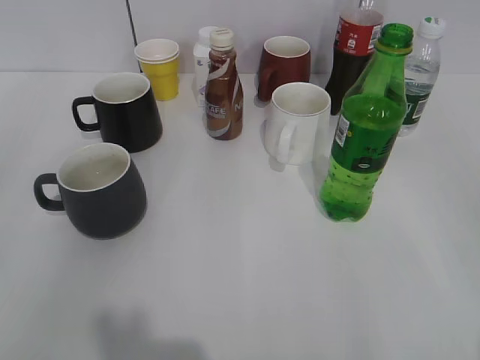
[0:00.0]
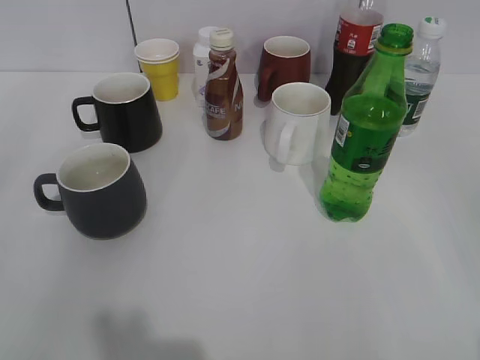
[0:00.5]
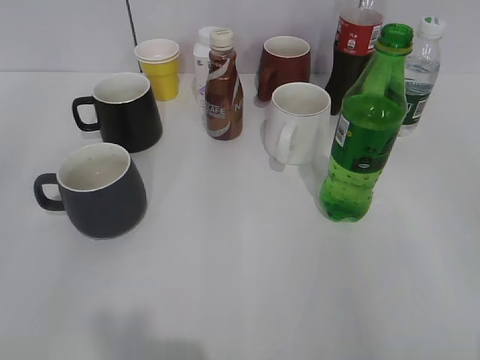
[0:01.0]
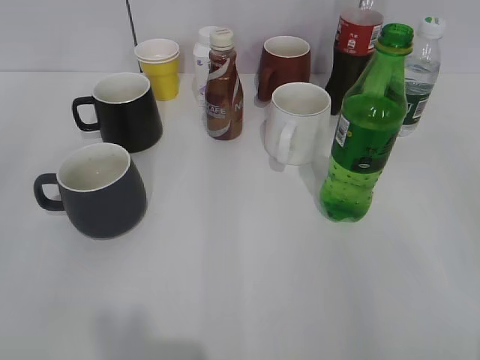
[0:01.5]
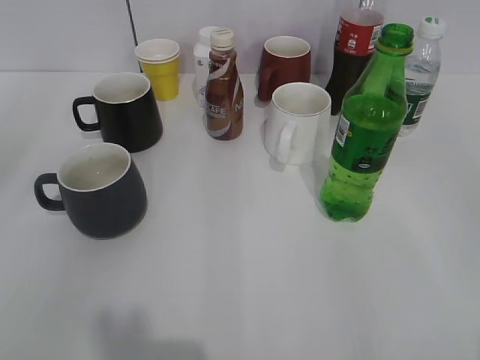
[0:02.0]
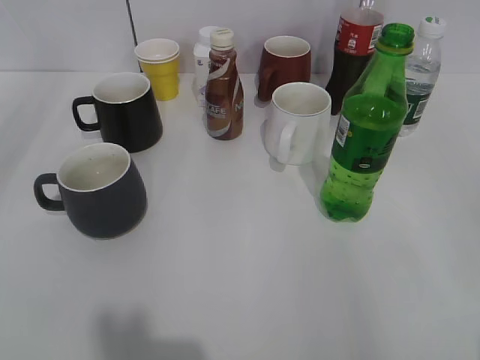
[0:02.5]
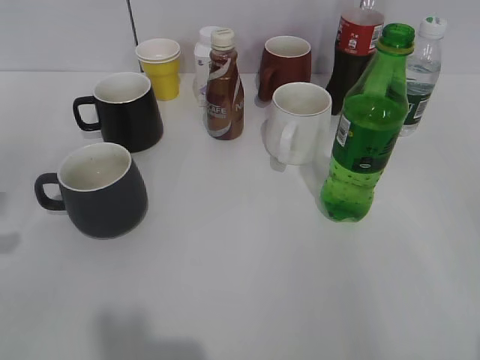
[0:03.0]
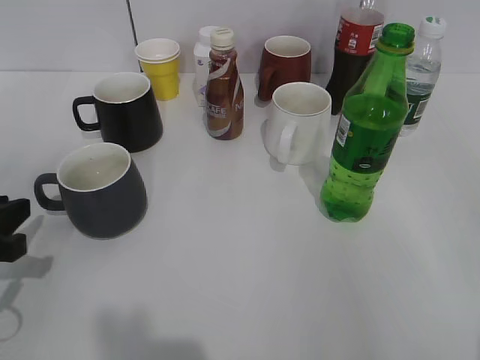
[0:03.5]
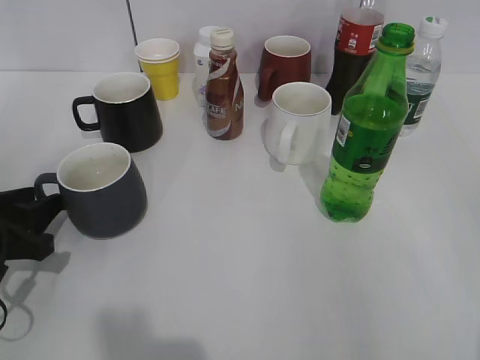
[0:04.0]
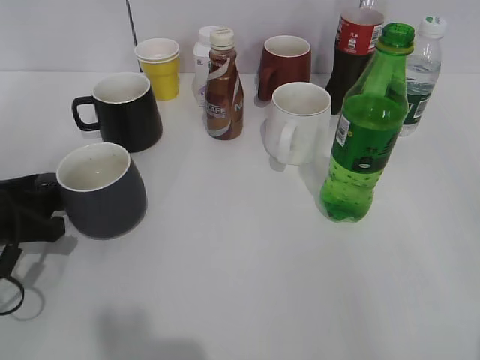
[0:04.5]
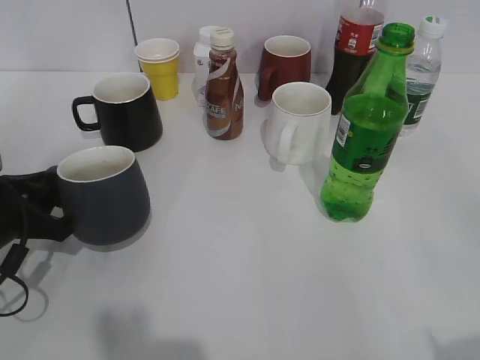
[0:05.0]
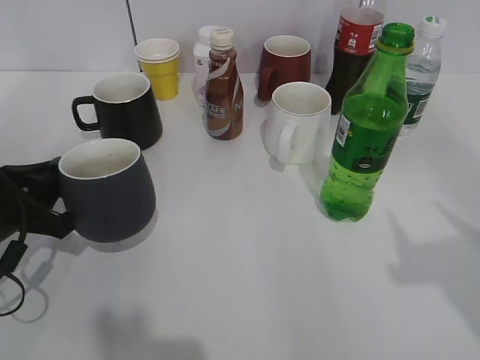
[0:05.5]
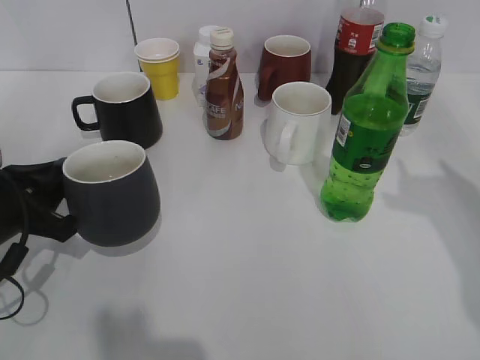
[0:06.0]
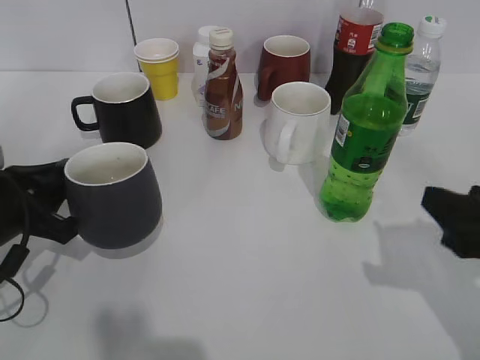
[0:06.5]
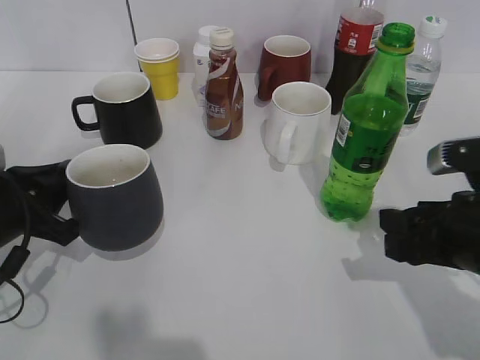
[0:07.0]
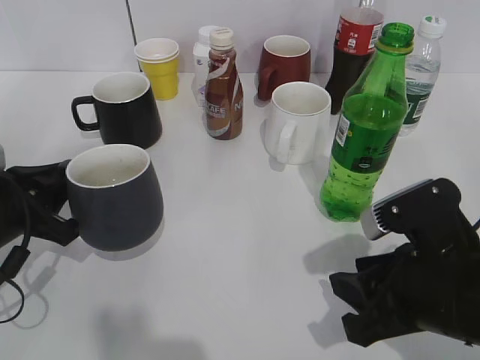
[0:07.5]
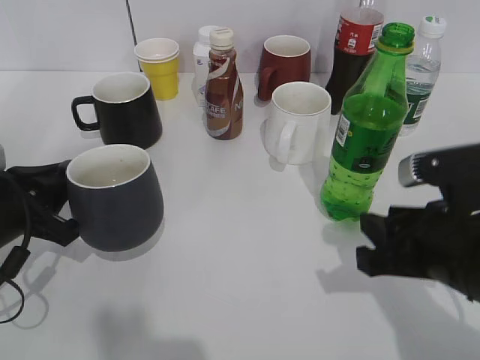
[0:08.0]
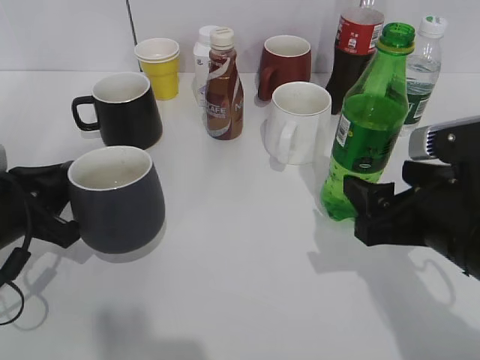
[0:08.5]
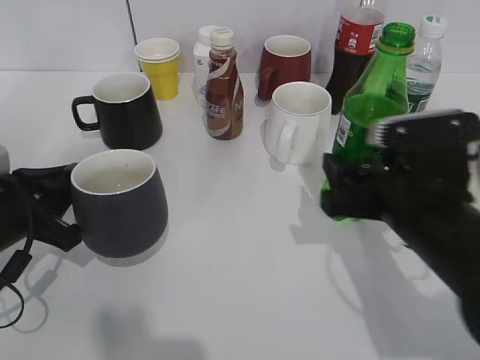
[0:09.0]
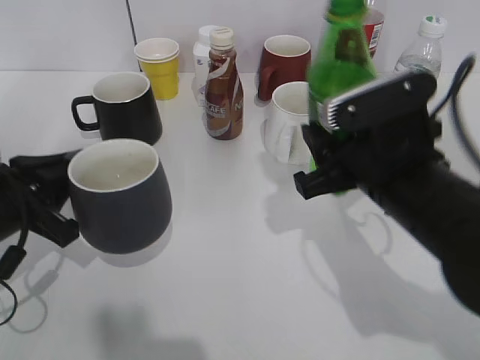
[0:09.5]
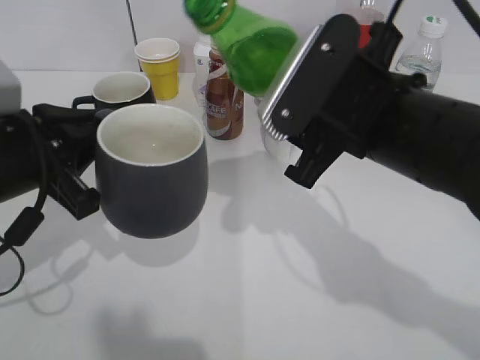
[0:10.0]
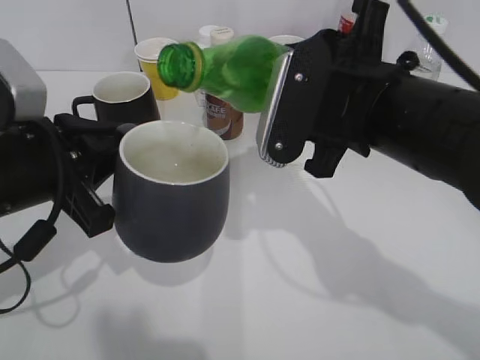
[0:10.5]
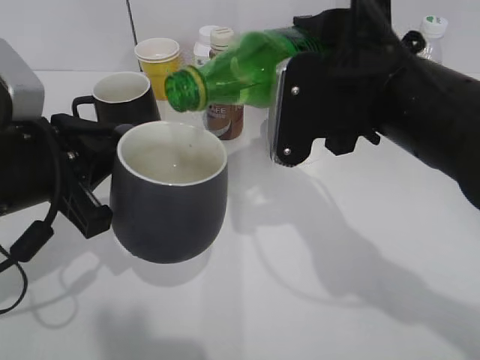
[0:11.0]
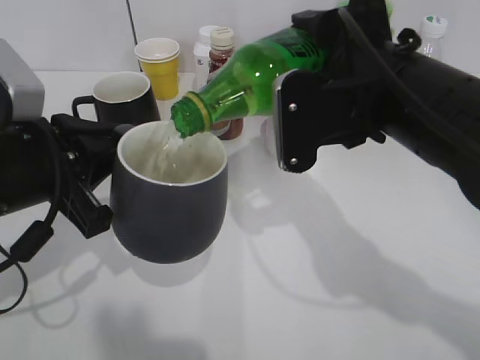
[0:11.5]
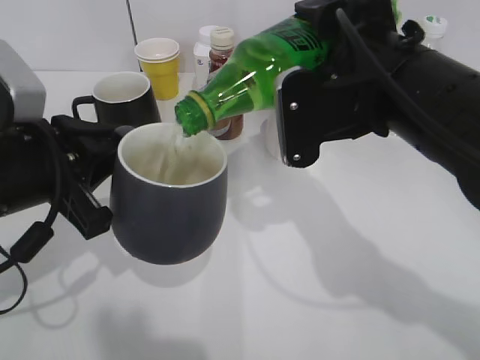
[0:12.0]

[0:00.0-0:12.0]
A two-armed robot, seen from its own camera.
Step, 0:02.0 to 0:04.5: Grasp the grey cup with left gripper.
Step, 0:06.5 to 0:09.0: Grasp the bottle with sprite with right gripper.
0:02.0 to 0:04.0: The left gripper shifts approximately 25 cm downward and forward, and opens its fingers.
0:04.0 to 0:06.0: The left gripper closes. The right gripper heads forward, covering approximately 20 cm.
0:06.0 to 0:08.0: The right gripper goes about 15 cm downward and to the left, and closes.
0:08.0 to 0:10.0: The right gripper shifts roughly 15 cm to the left, upward and forward, and opens and closes again, while the left gripper moves upward, approximately 10 cm.

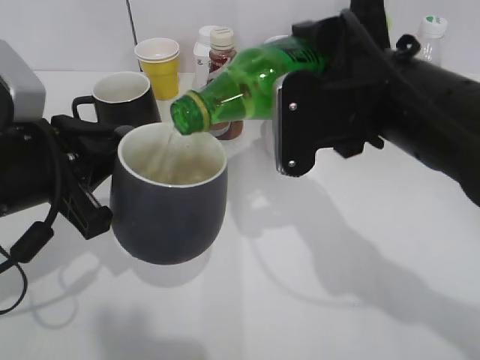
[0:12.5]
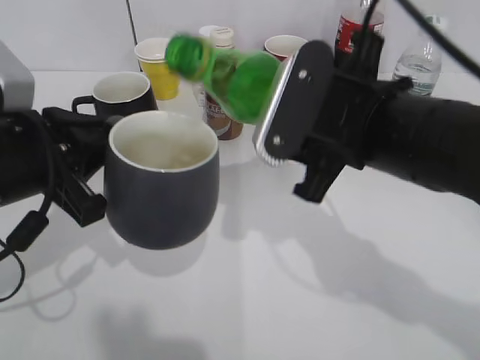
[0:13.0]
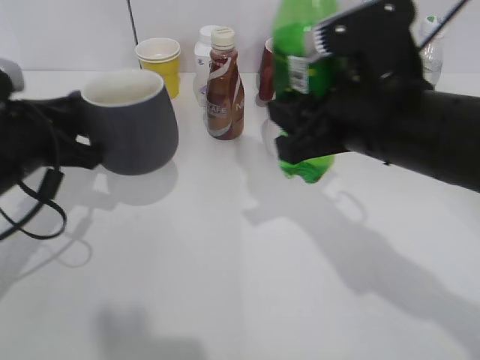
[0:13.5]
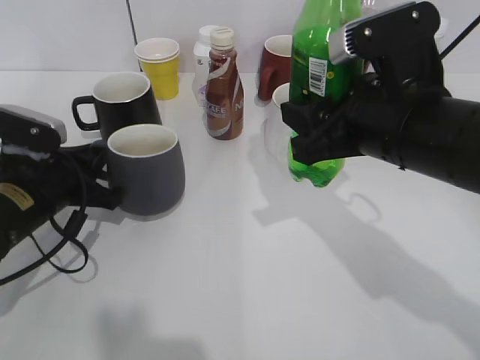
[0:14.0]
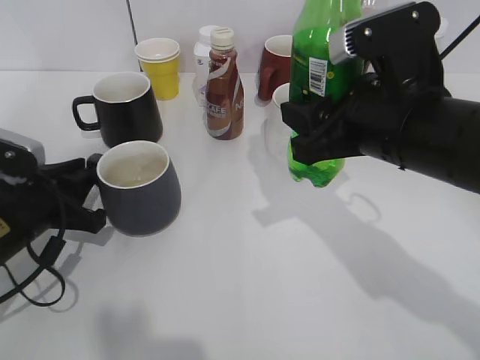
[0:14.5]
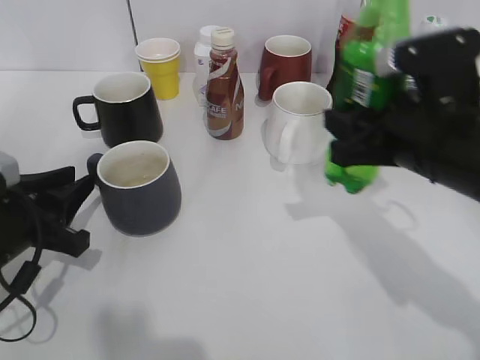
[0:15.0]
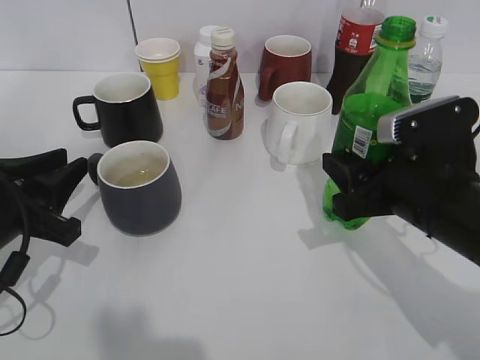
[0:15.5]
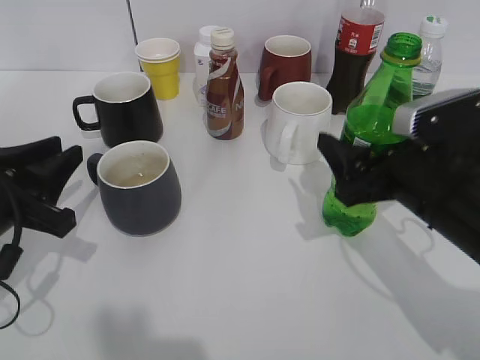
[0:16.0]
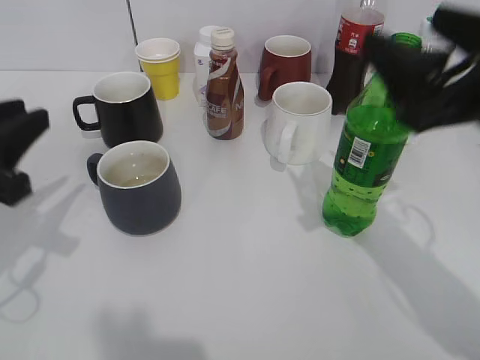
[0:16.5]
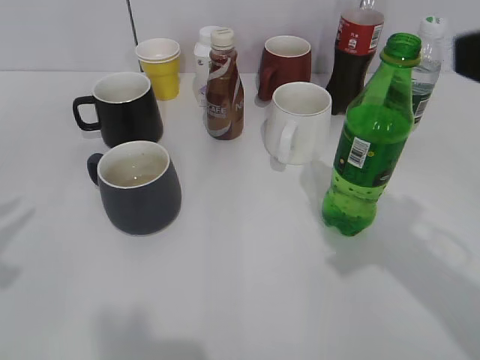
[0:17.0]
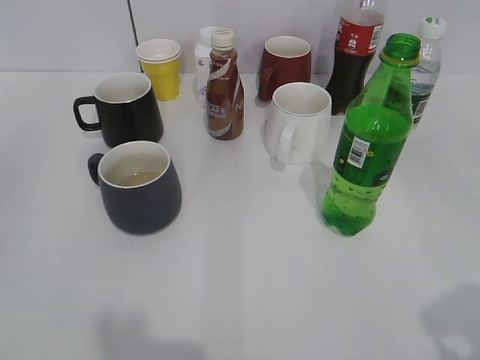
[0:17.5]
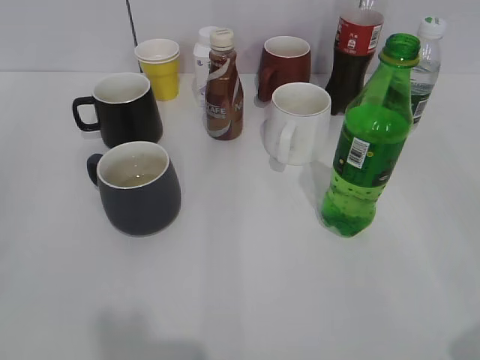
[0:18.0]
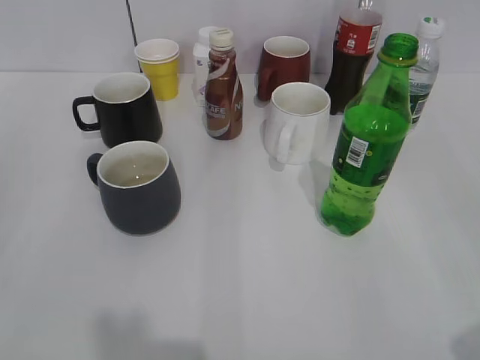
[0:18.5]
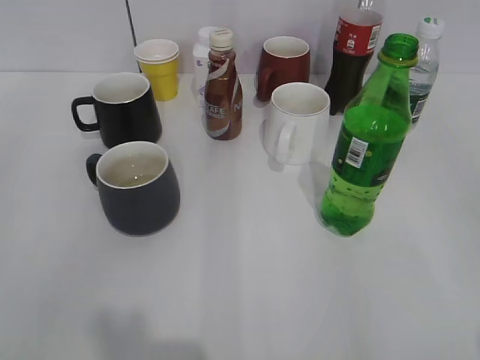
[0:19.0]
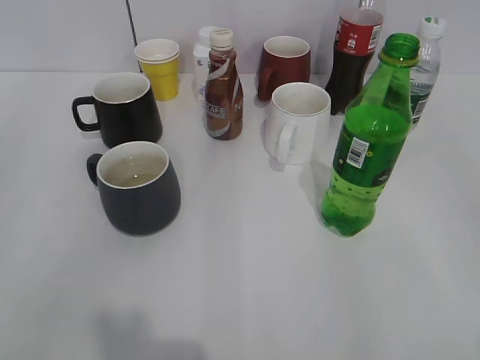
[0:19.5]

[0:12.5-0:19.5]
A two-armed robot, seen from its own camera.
Step, 0:13.5 to 0:14.5: Place the grey cup on the table with left gripper.
Step, 0:15.0 to 0:16.0: Place the sprite bottle on the table with right gripper.
0:12.5 to 0:14.5: The left gripper goes roughly 10 cm downward, and opens its fingers.
0:14.5 to 0:16.0: The left gripper moves some 5 cm, while the right gripper heads downward, covering approximately 5 cm, and opens up.
0:16.0 to 0:17.5: The right gripper is displaced backward, upward and to the right by approximately 25 cm. The left gripper moves backward, upward and to the left, roughly 25 cm, and opens up.
0:17.5 to 0:19.5: The right gripper is displaced downward by approximately 5 cm. Meanwhile the left gripper closes up.

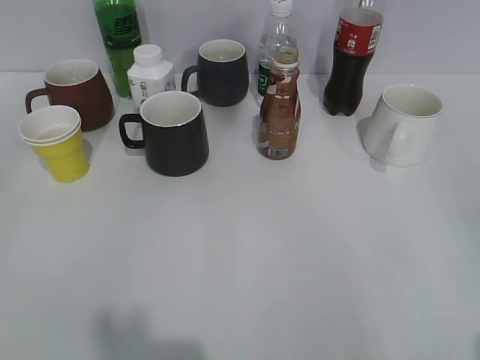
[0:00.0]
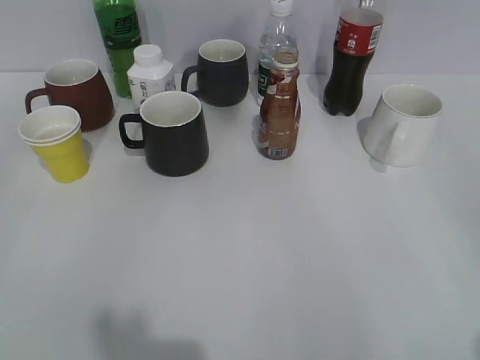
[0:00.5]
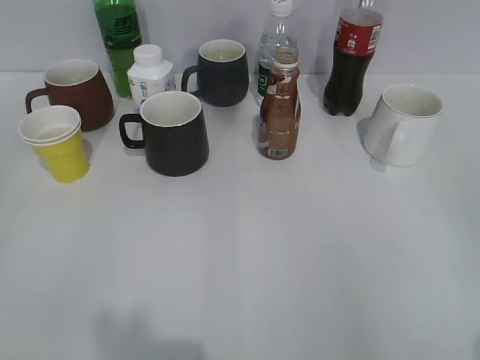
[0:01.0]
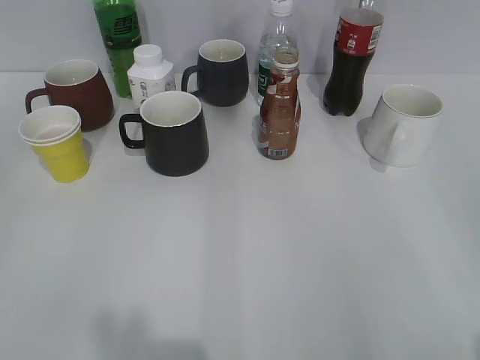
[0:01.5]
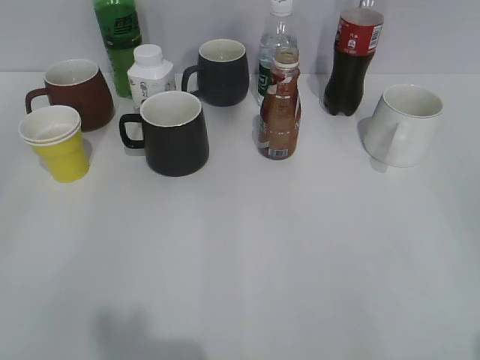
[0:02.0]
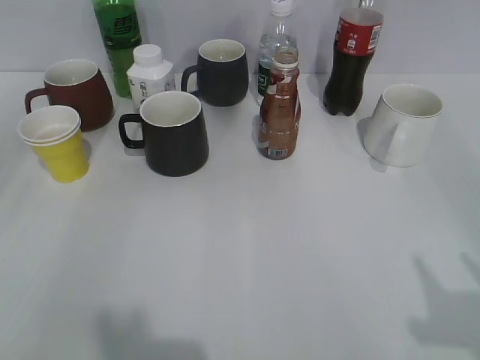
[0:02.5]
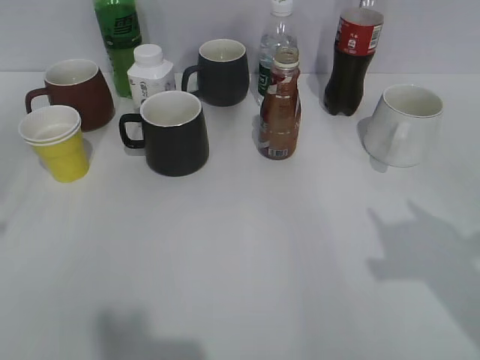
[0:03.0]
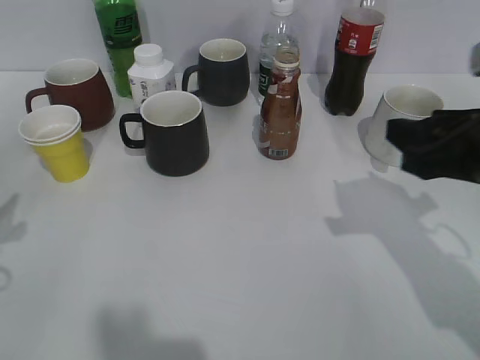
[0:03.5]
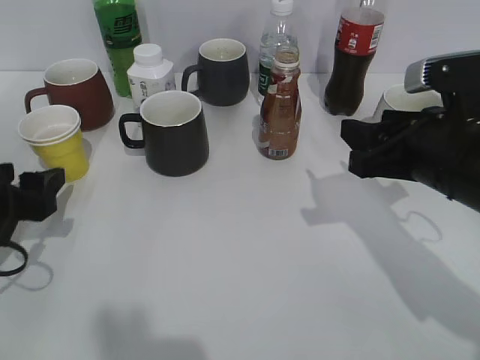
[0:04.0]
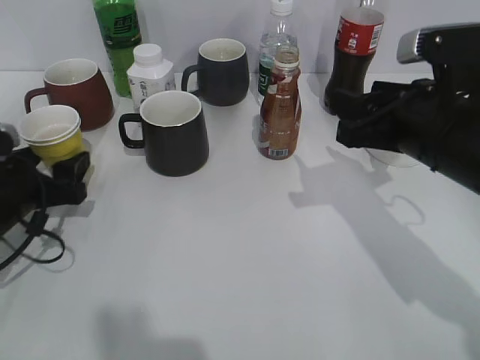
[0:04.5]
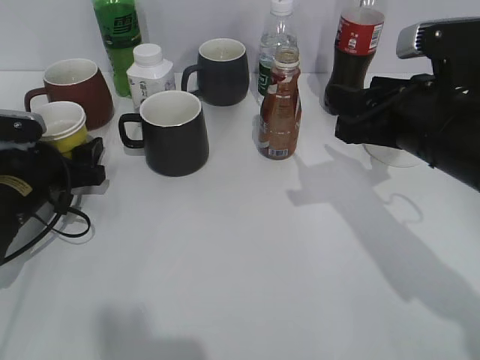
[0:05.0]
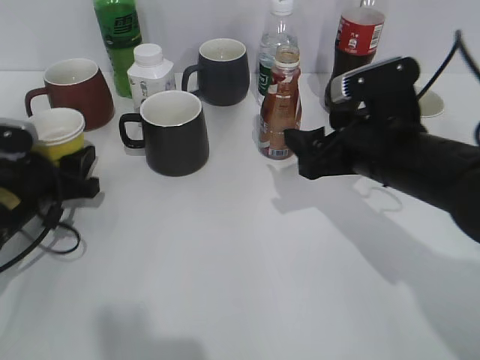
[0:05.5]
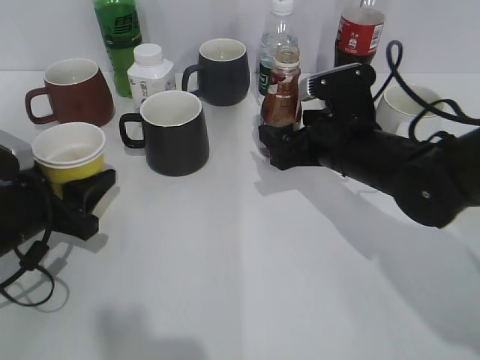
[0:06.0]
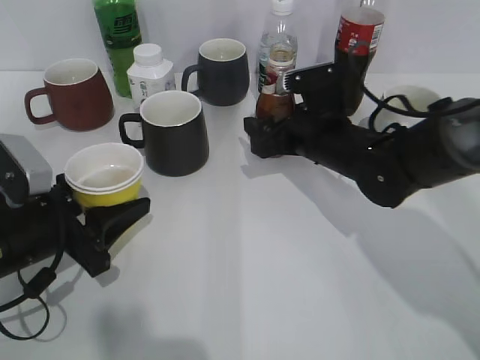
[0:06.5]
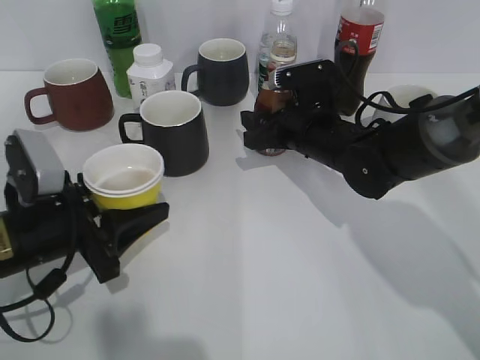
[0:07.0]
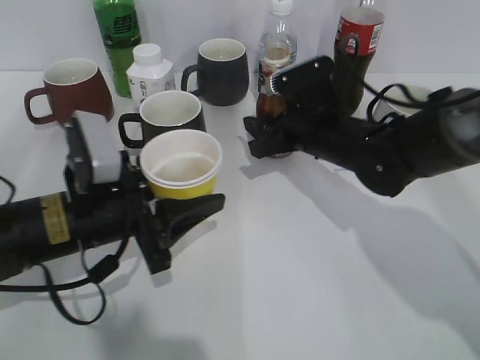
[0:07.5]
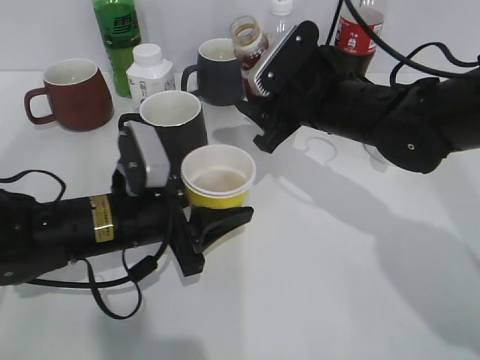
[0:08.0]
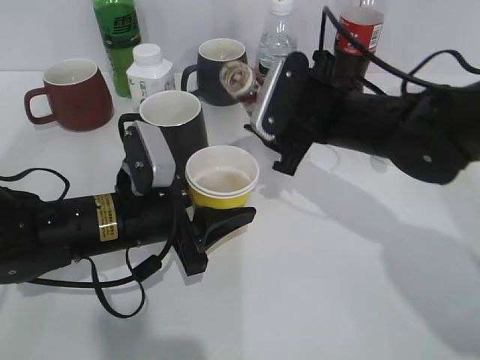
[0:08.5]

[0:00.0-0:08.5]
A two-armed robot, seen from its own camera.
Step, 0:02.0 to 0:05.0: Grasp the yellow paper cup with left gripper.
Step, 0:05.5 to 0:07.0: Grasp the bottle with coffee with right gripper.
0:02.0 to 0:04.0: The right gripper is displaced forward and to the left by about 25 cm; the left gripper heads forward and downward, covering some 30 cm, and opens its fingers.
0:04.0 to 0:06.5: The right gripper travels forward, to the left and downward by about 15 cm, and opens its fingers, while the left gripper shifts about 5 cm to the right, goes forward and returns, some 10 cm each way, and closes.
0:06.5 to 0:08.5: The right gripper moves upward, approximately 5 cm, and closes its fingers. Meanwhile the left gripper heads to the right, covering about 10 cm.
